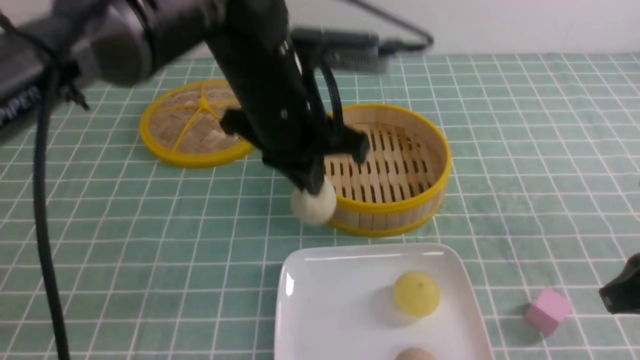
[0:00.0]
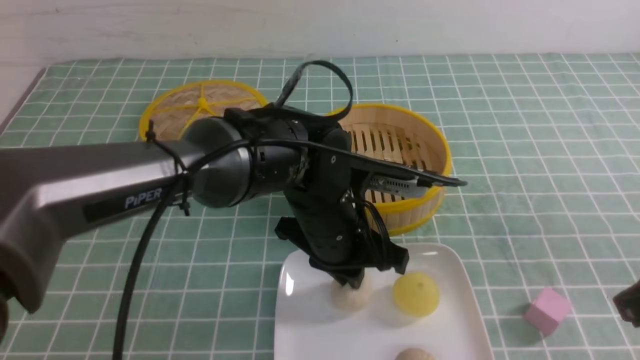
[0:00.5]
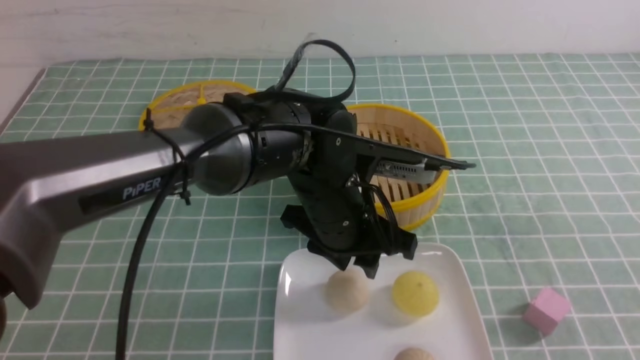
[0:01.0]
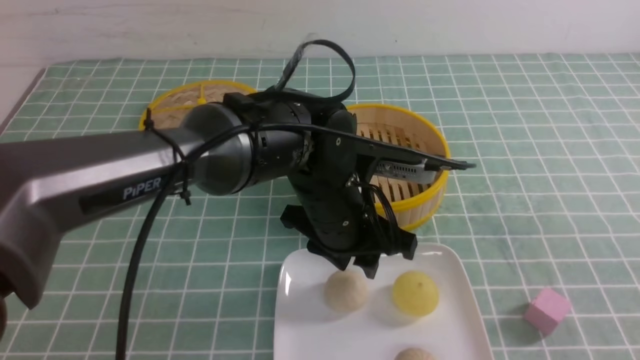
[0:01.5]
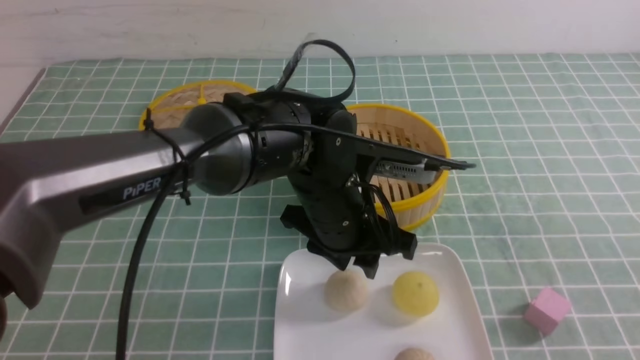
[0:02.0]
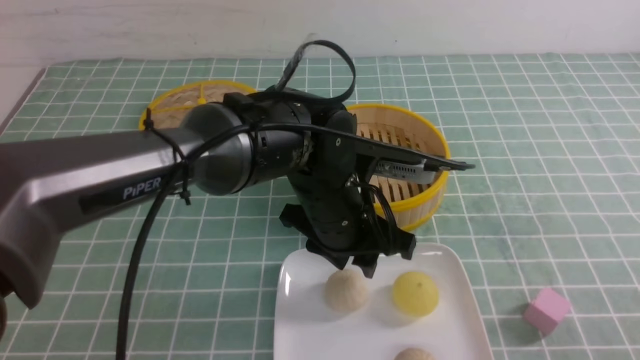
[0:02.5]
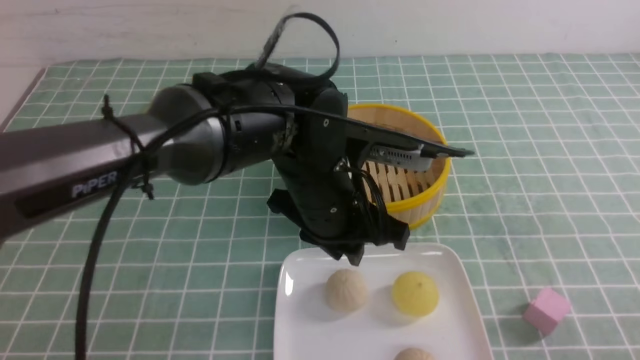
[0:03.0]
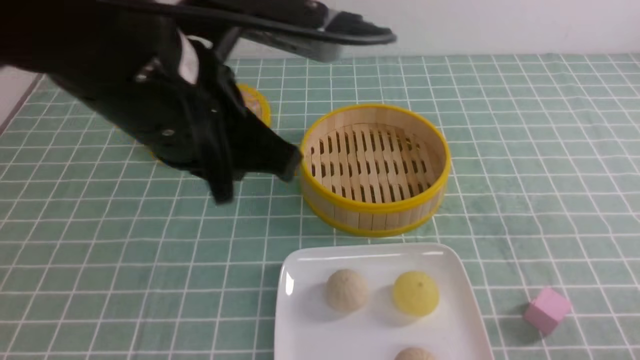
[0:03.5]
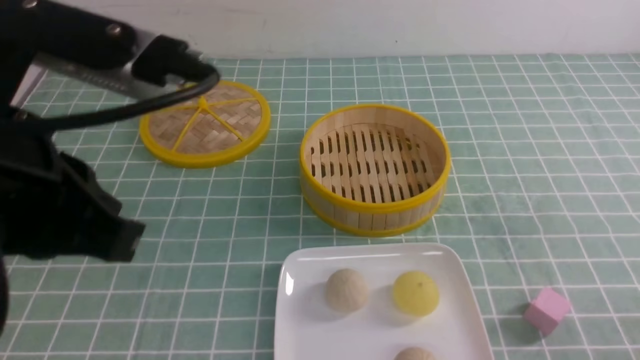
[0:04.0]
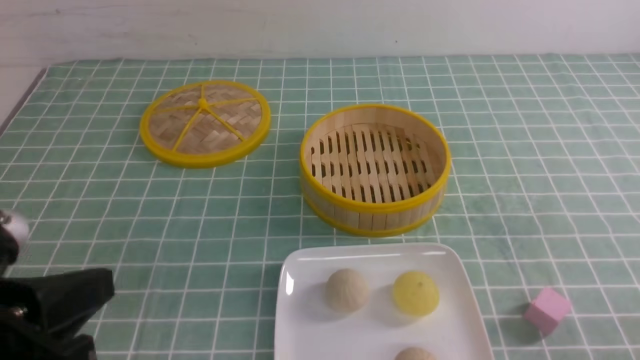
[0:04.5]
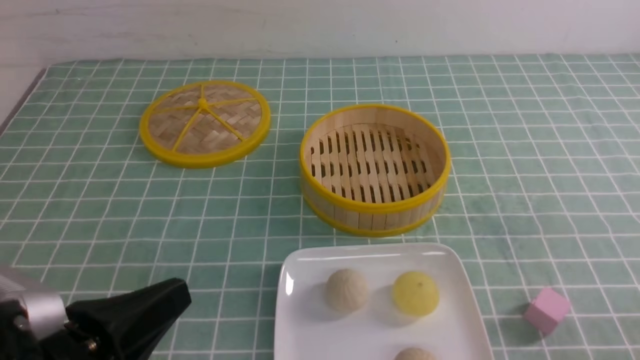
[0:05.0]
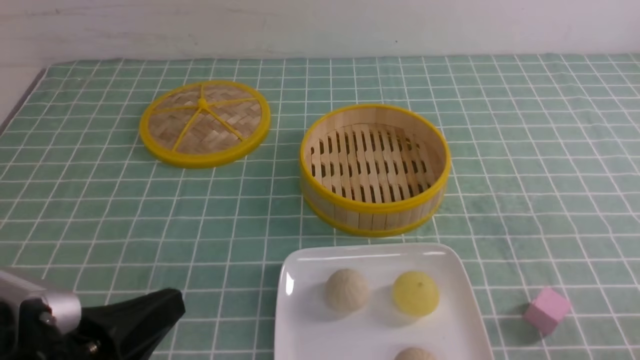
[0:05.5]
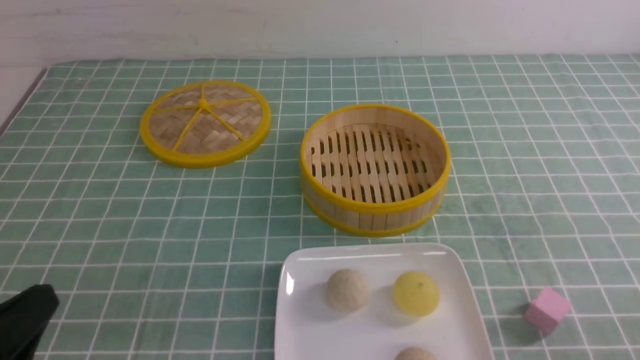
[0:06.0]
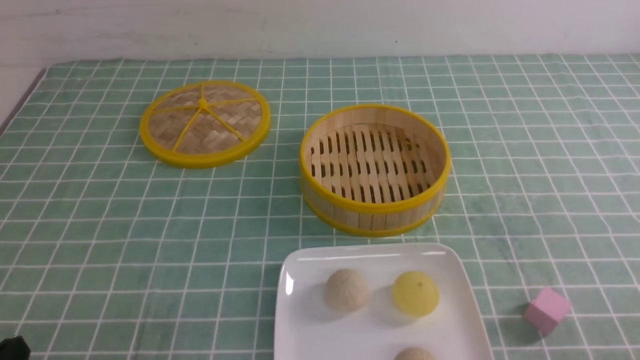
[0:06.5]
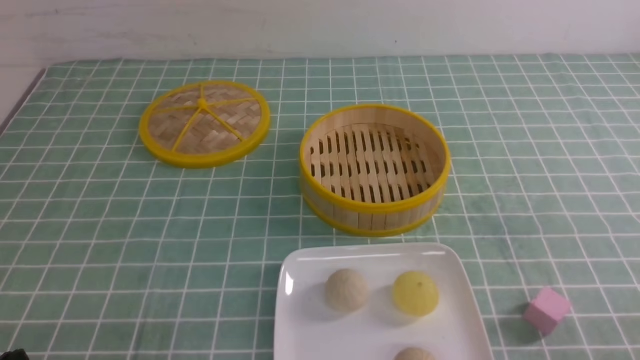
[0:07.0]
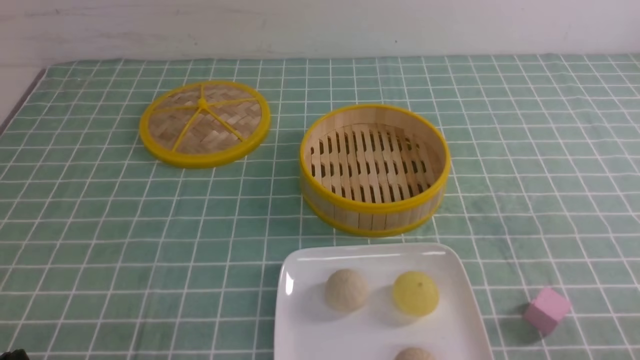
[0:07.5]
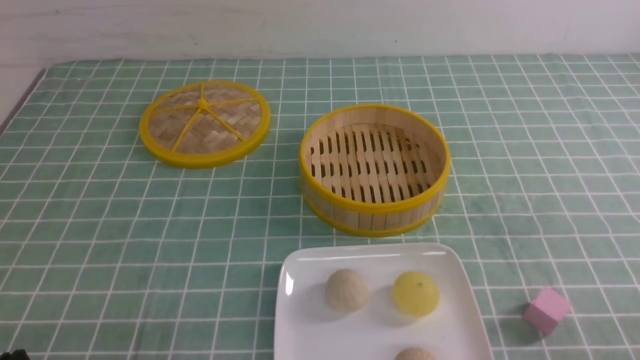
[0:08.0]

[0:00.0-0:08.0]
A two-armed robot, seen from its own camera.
0:00.0 to 0:02.0: The right gripper shifts some 15 cm backward, while the left gripper travels downward by about 10 cm, and opens its fingers.
0:02.0 to 0:04.0: The left gripper travels to the left, upward and backward by roughly 30 cm, and closes. Meanwhile the right gripper moves downward, some 10 cm.
0:04.0 to 0:06.0: The left gripper shifts about 20 cm downward and to the left.
0:06.0 to 0:08.0: The left gripper moves downward, some 5 cm.

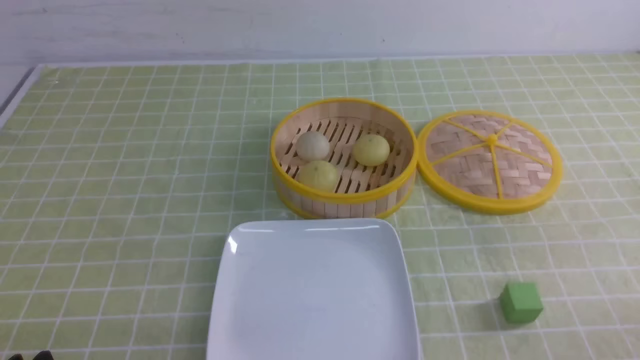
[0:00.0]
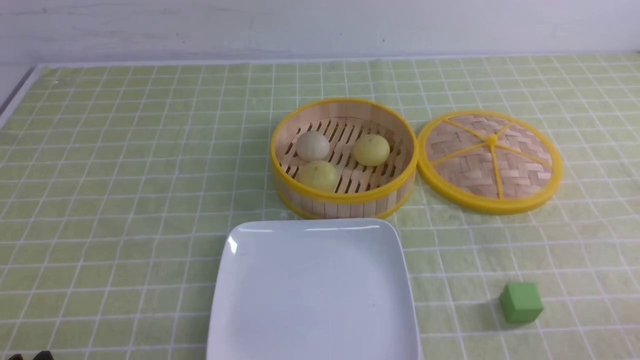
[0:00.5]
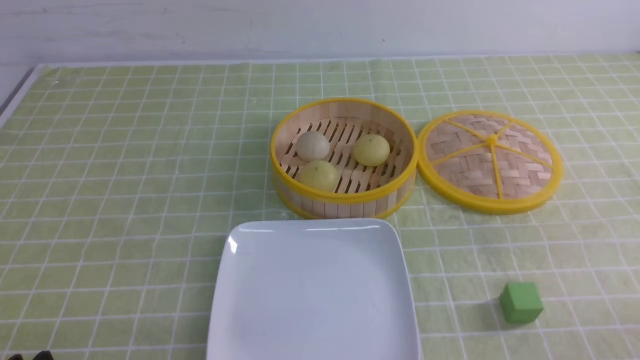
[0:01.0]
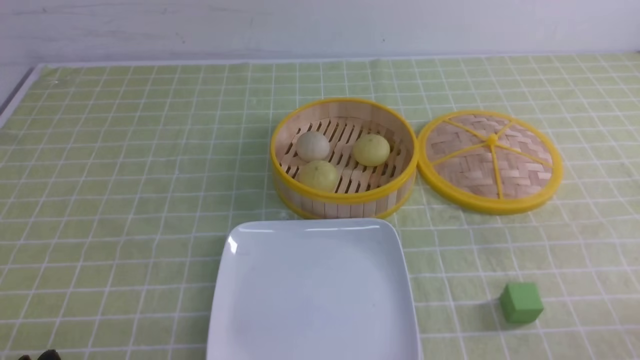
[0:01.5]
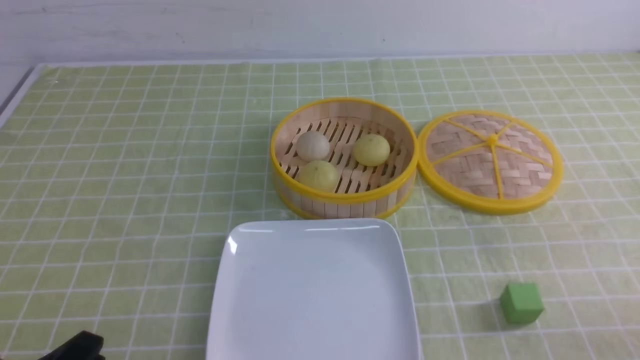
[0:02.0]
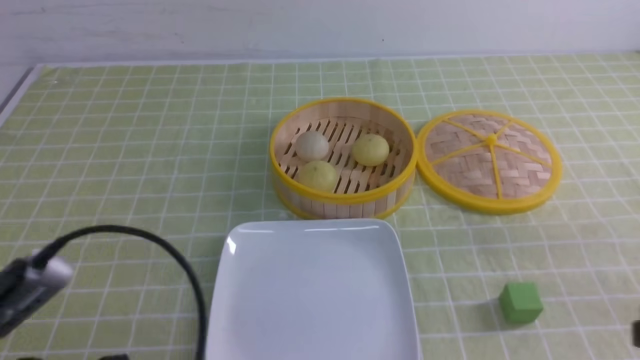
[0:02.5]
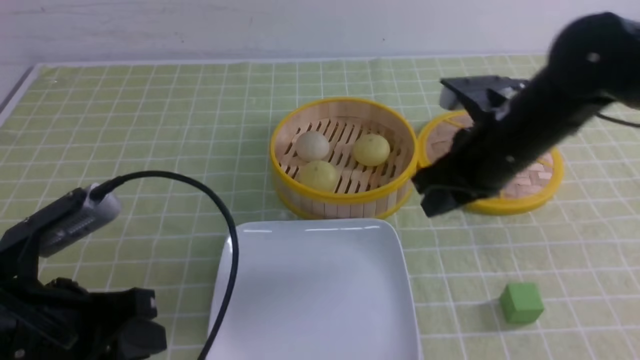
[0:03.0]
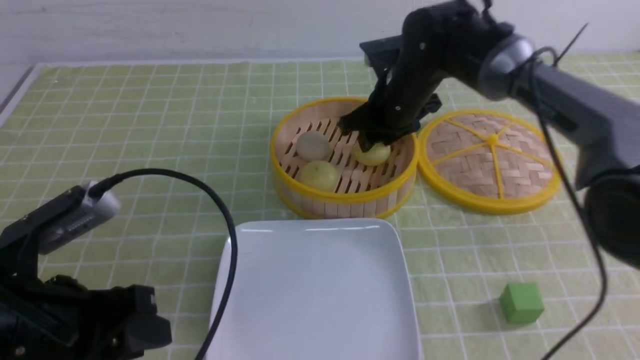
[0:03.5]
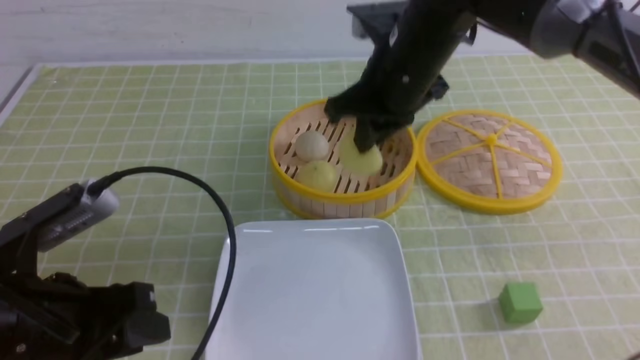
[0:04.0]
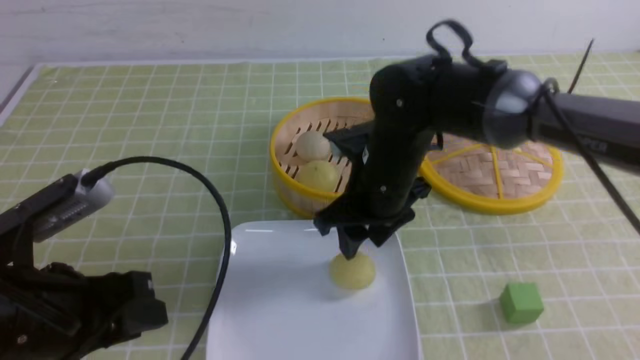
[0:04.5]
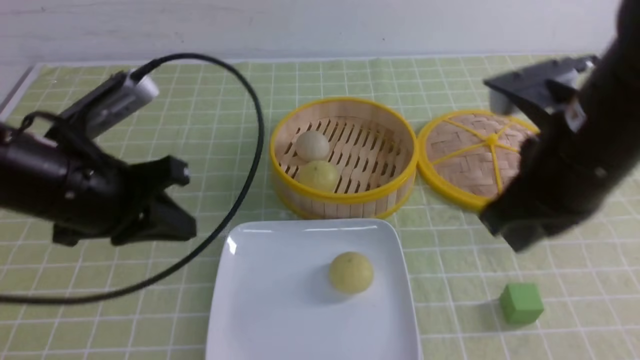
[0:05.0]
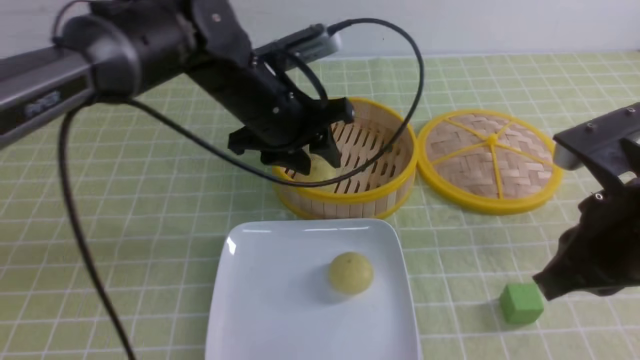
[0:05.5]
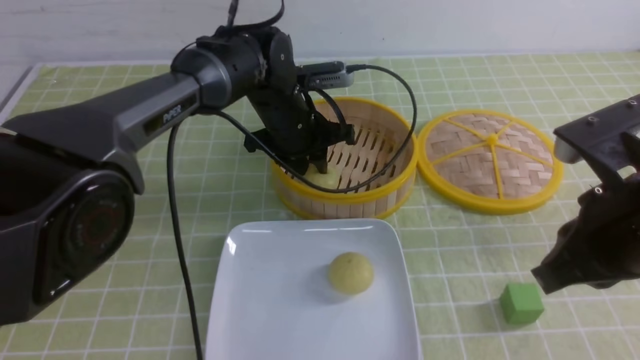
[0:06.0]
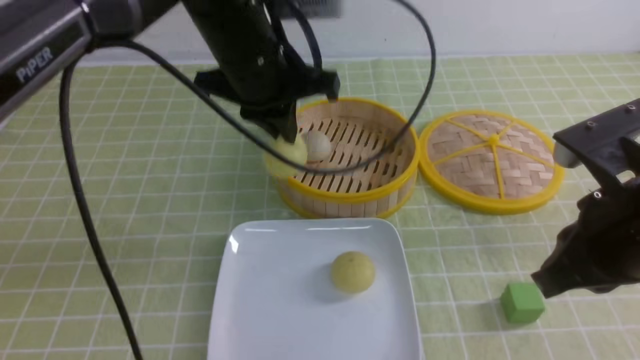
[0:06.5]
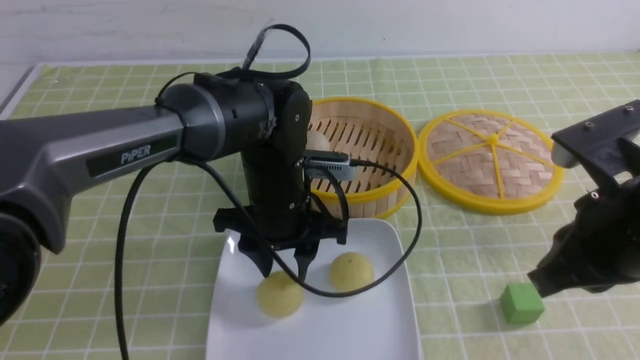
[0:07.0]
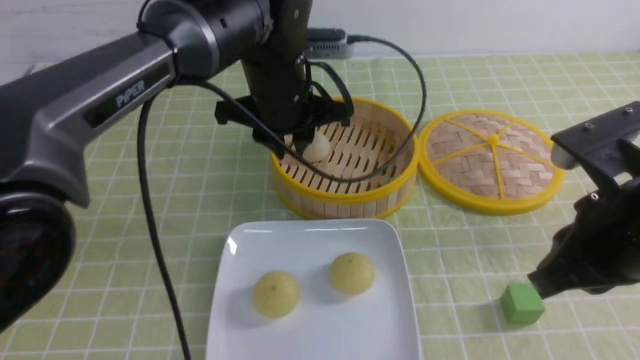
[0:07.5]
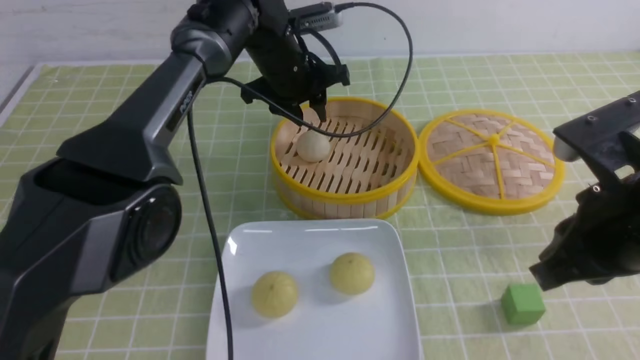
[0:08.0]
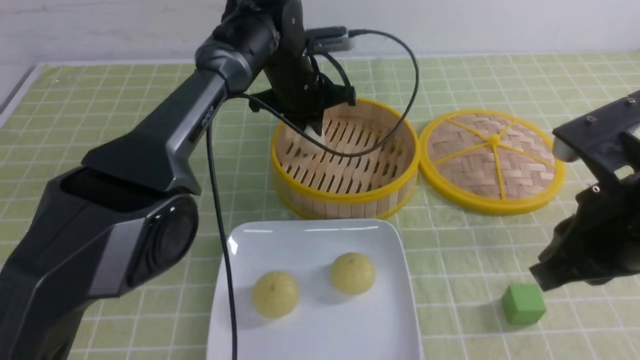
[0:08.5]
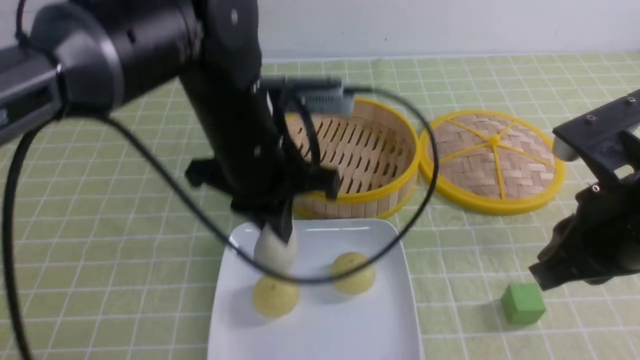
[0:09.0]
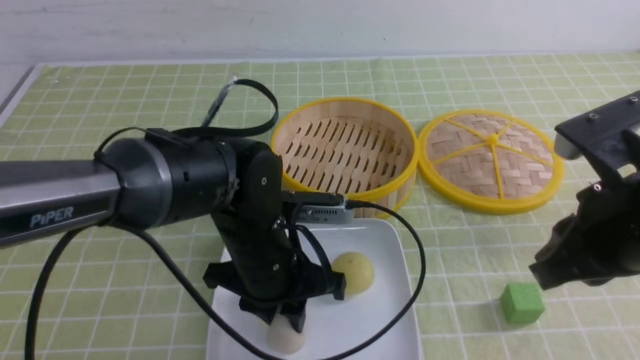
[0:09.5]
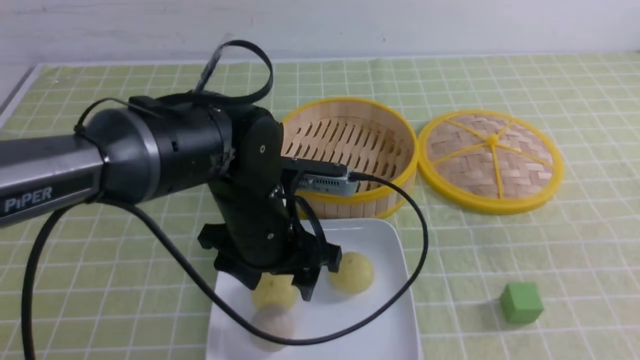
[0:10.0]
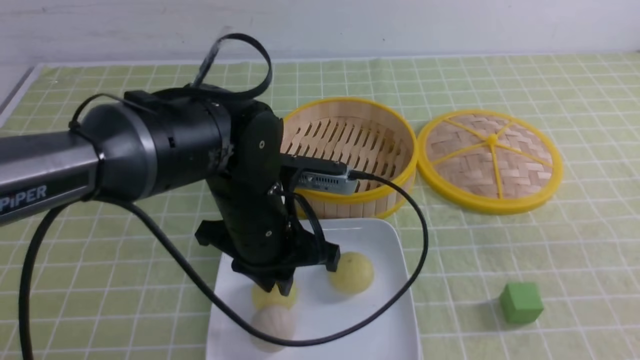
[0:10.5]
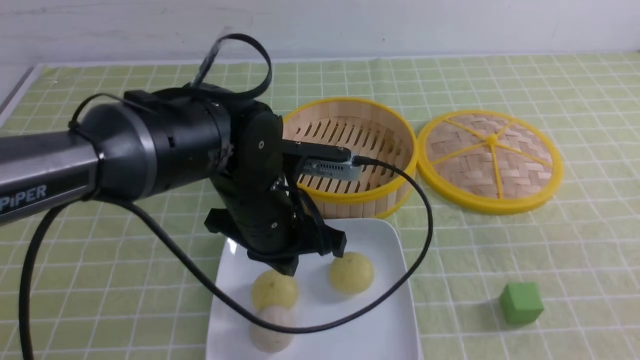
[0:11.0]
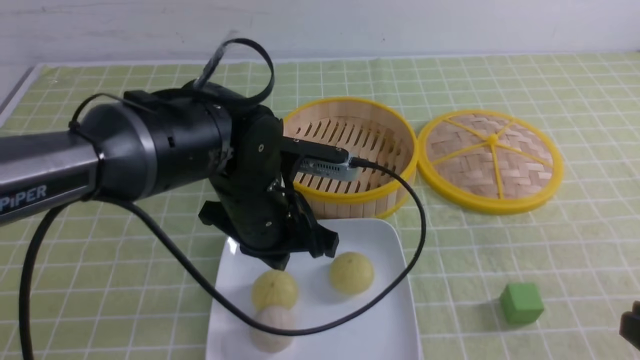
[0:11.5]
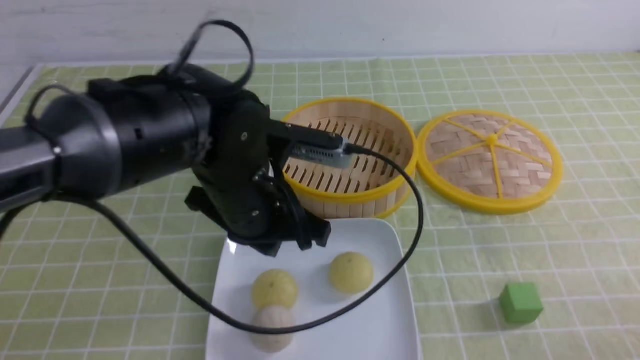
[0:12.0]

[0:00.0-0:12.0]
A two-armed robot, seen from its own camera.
Step, 0:00.0 to 0:03.5: use the right arm to grab the steamed stuffed bun that is closest to it.
Step, 0:04.5 to 0:06.0: use the left arm to grab the steamed stuffed bun that is closest to it.
Step, 0:07.5 to 0:08.0: use the left arm to grab the steamed stuffed bun that is closest to it.
Step, 0:09.0 to 0:09.5: use the left arm to put the steamed stuffed bun into the plate.
0:02.0 to 0:04.0: The left gripper is displaced forward and upward by approximately 10 cm. The right gripper travels forward and to the left by some 40 cm, and closes up.
0:04.0 to 0:06.0: The right gripper goes approximately 25 cm backward and to the right, and opens, then closes again. Meanwhile the left gripper is displaced forward and to the right by about 35 cm.
0:06.0 to 0:08.0: The left gripper moves some 10 cm backward and comes back.
0:08.0 to 0:10.0: The left gripper moves backward, roughly 20 cm, and closes, then opens again. Meanwhile the right gripper is displaced backward and to the right by about 15 cm.
0:10.0 to 0:12.0: The left gripper heads upward, covering roughly 5 cm, and closes, while the right gripper shifts some 15 cm downward.
